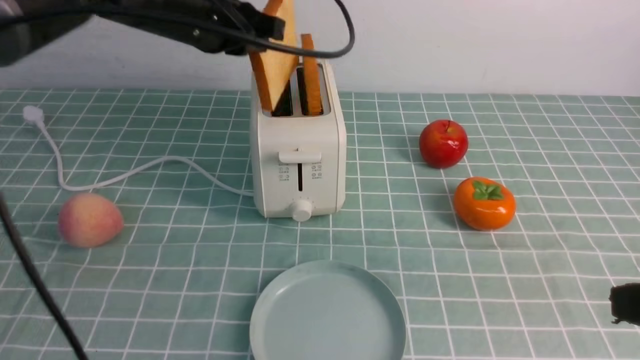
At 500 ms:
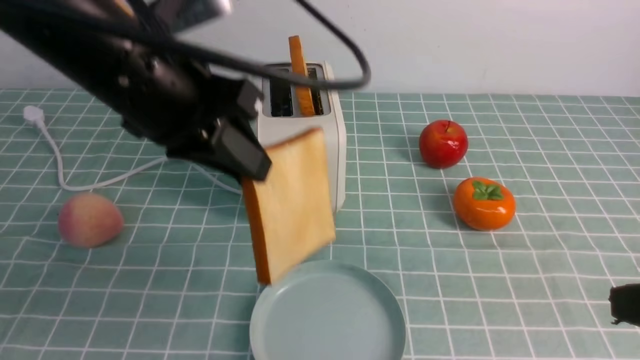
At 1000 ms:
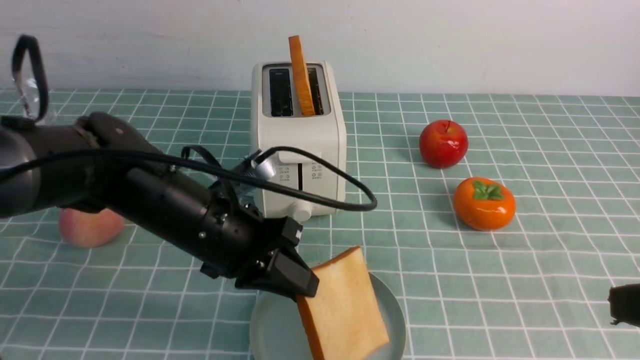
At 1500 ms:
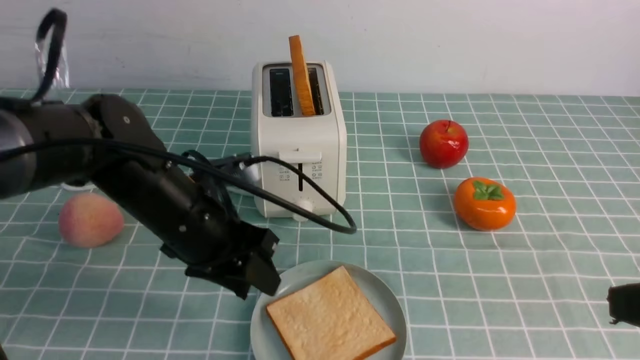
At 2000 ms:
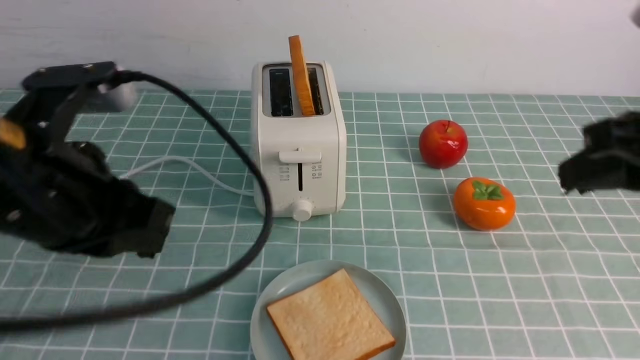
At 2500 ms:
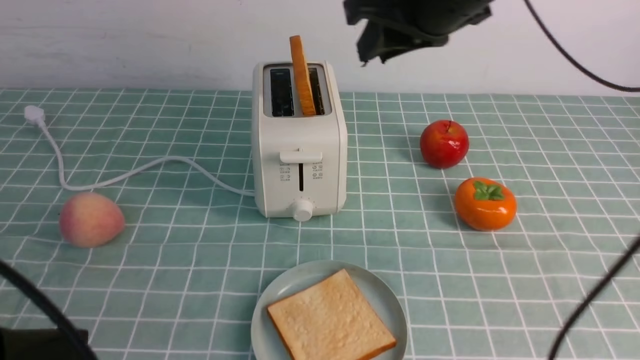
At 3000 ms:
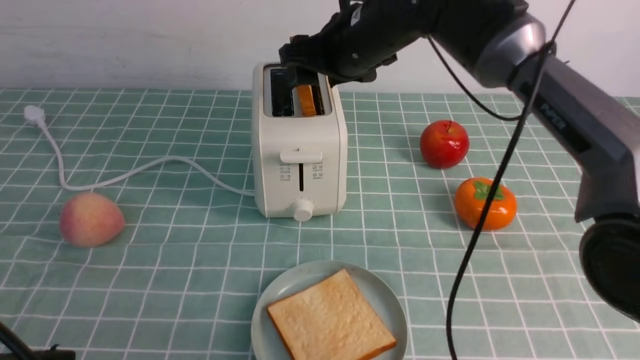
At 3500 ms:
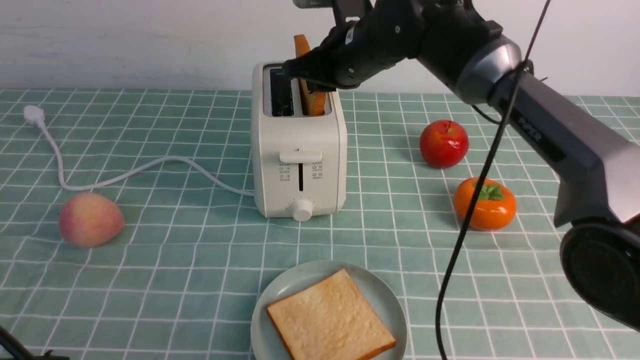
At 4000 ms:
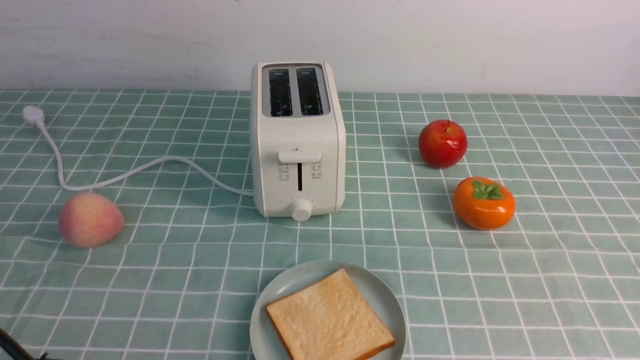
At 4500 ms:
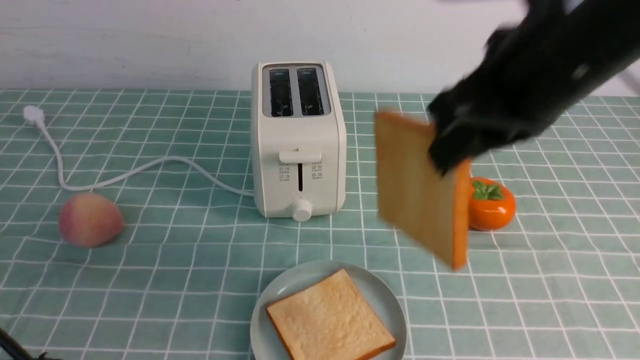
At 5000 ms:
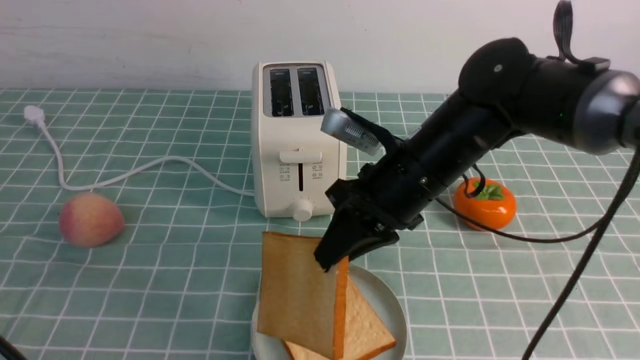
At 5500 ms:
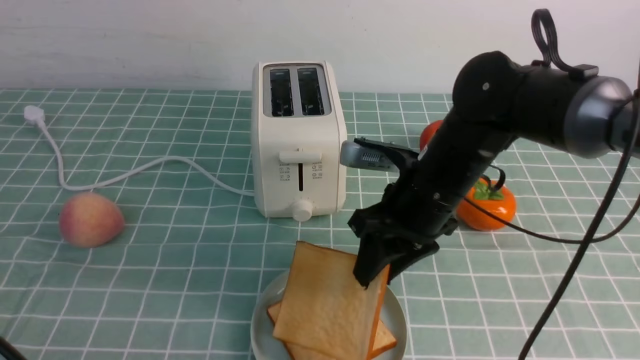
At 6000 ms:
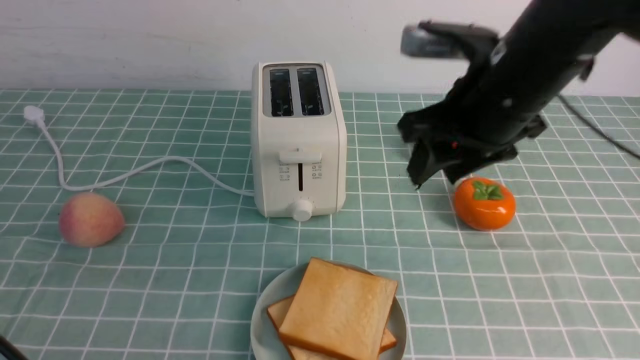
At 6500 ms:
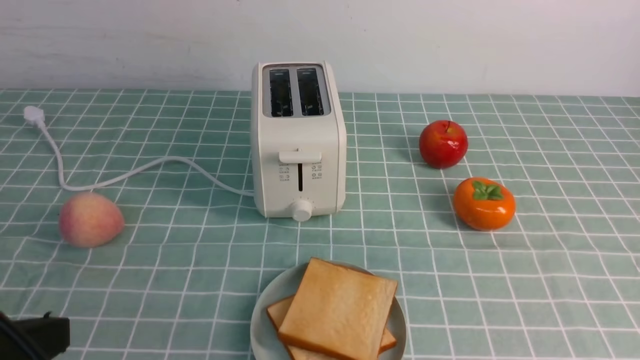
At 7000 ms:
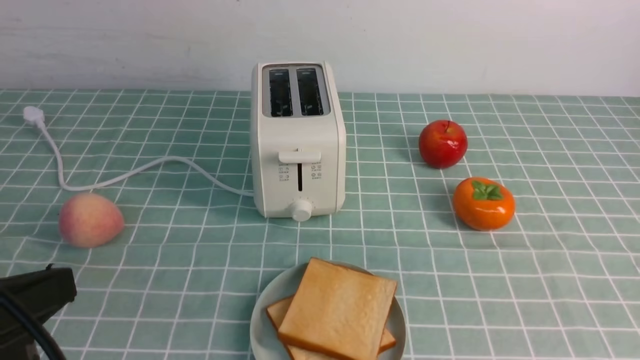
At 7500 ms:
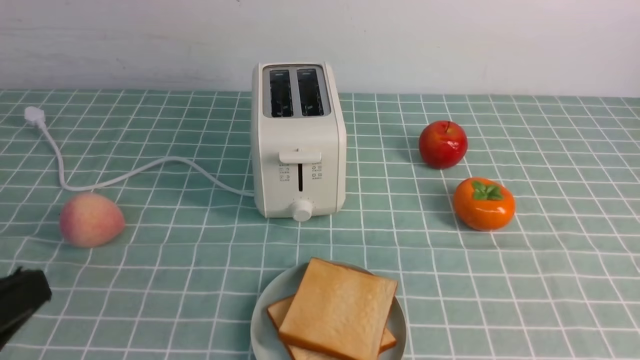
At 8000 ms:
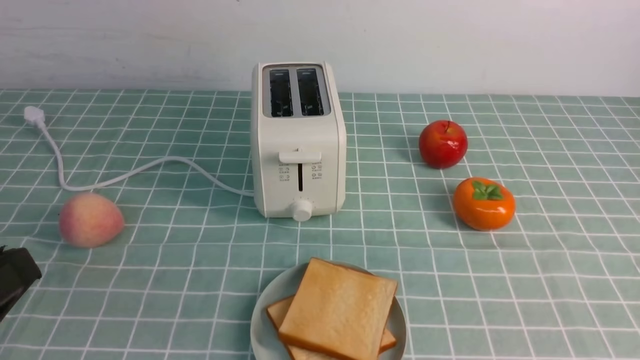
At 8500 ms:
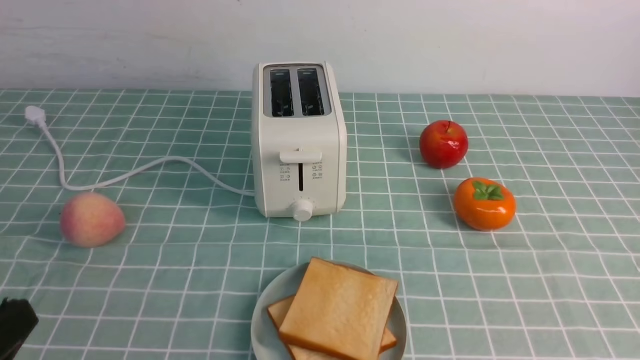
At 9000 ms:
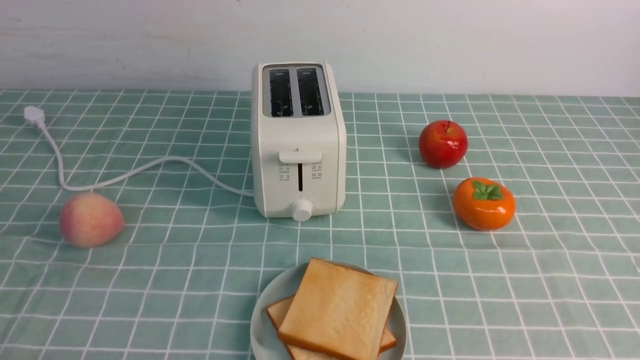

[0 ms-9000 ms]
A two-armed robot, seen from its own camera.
Task of the whole recording: take toasted bread from bread machine on blue coffee table place on plate.
Step, 500 ms to 1500 ms: use the left arm to put a slice of bread into the empty plate.
Step, 2000 ms to 3500 ms: use the right arm to take out a slice of bread.
Step, 4000 ms to 5500 ms: use the right arm to put a slice of bread into the plate.
0 ms to 2000 ms: The right gripper moves forward and upward, roughly 10 cm, while the left gripper shifts some 20 cm backward, and opens and closes again.
2000 ms to 4500 ms: The right gripper moves to the left, approximately 10 cm, reaches some 25 cm forward, then returns, and opens and closes again; the left gripper travels backward by roughly 15 cm.
4500 ms to 7000 ms: The right gripper heads backward and to the right, covering approximately 30 cm, and opens, then closes once more.
7000 ms to 9000 ms: The left gripper shifts some 15 cm downward.
